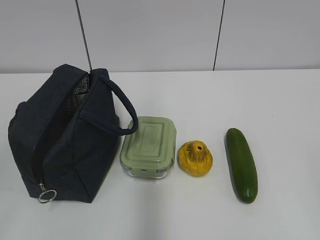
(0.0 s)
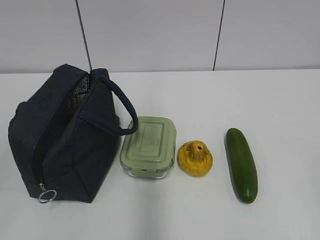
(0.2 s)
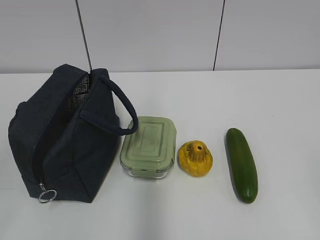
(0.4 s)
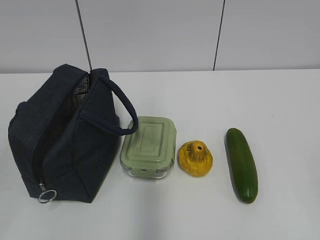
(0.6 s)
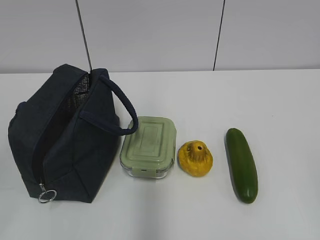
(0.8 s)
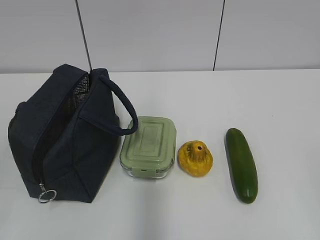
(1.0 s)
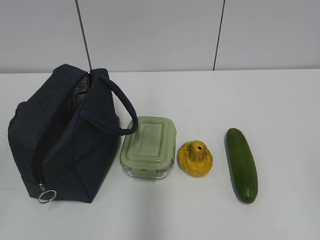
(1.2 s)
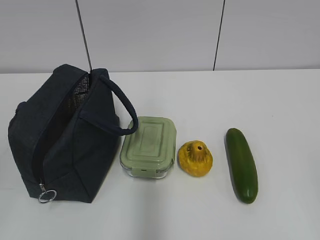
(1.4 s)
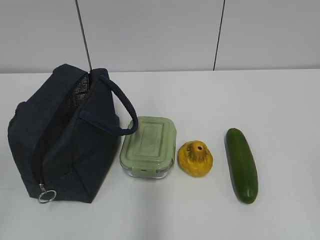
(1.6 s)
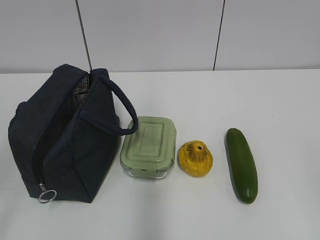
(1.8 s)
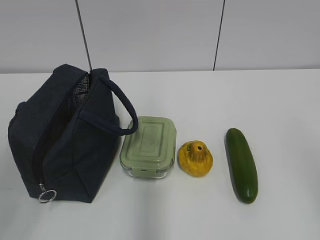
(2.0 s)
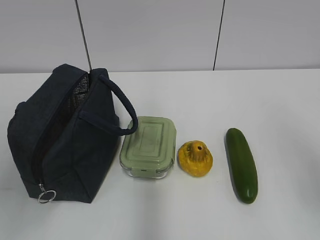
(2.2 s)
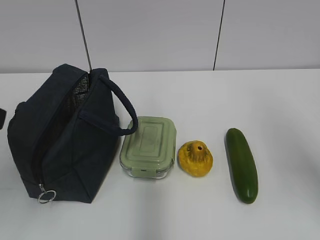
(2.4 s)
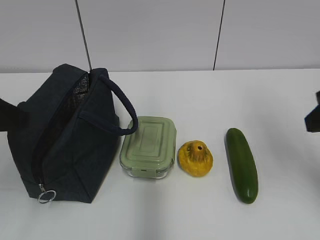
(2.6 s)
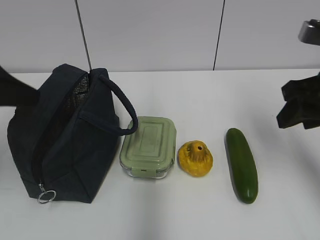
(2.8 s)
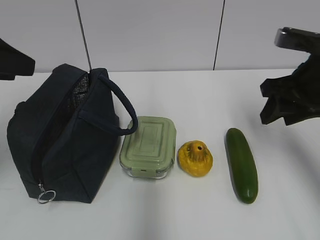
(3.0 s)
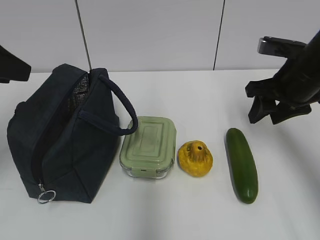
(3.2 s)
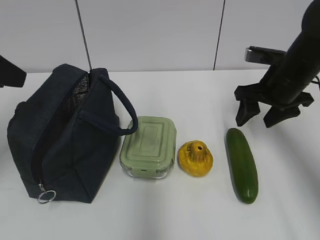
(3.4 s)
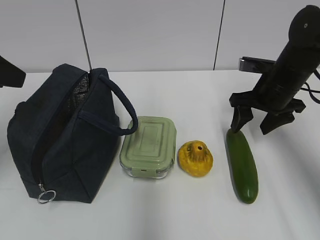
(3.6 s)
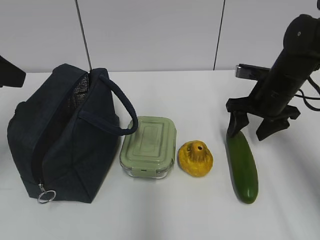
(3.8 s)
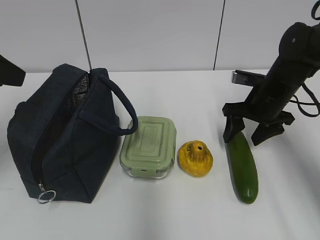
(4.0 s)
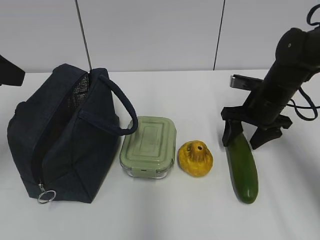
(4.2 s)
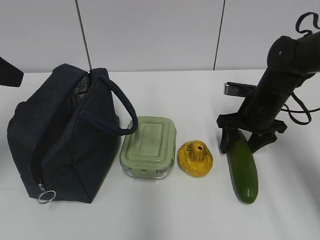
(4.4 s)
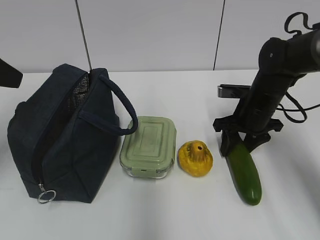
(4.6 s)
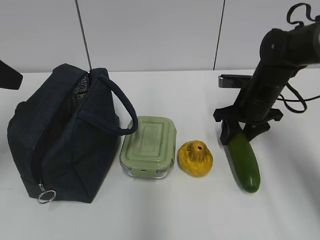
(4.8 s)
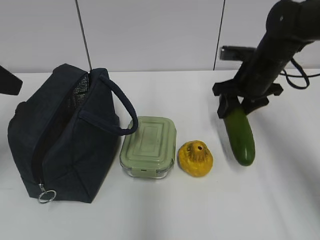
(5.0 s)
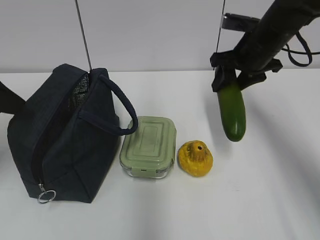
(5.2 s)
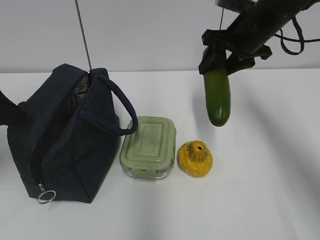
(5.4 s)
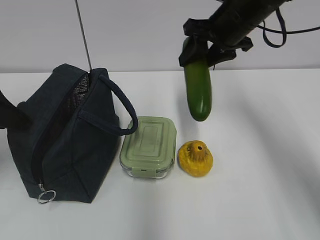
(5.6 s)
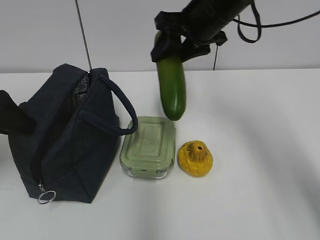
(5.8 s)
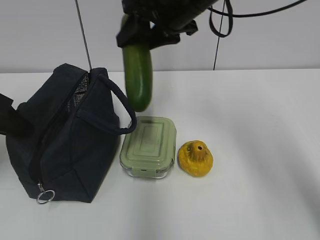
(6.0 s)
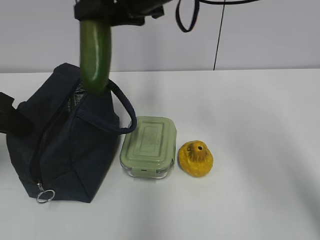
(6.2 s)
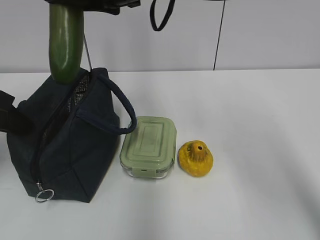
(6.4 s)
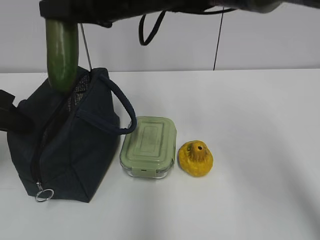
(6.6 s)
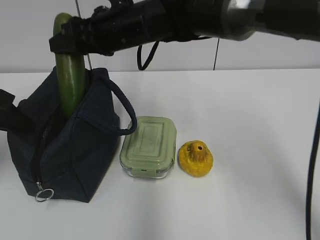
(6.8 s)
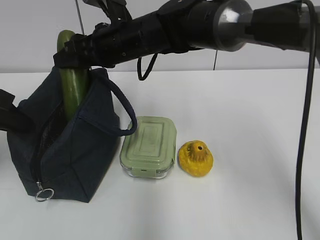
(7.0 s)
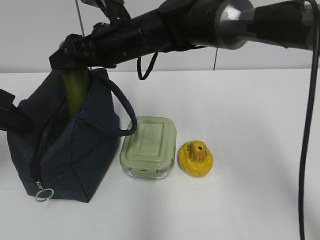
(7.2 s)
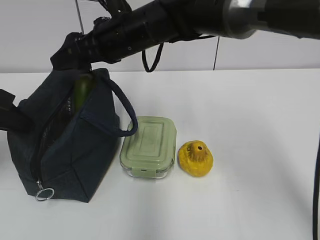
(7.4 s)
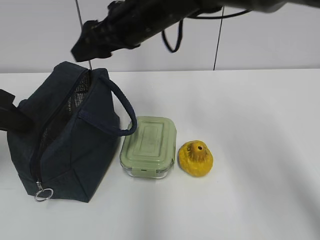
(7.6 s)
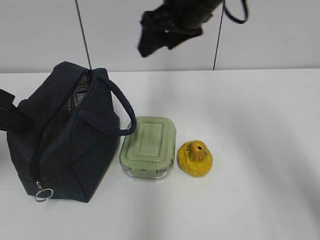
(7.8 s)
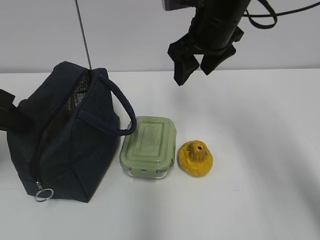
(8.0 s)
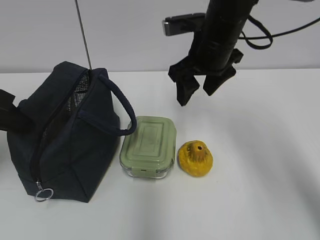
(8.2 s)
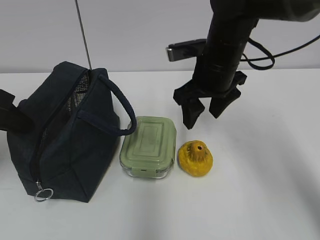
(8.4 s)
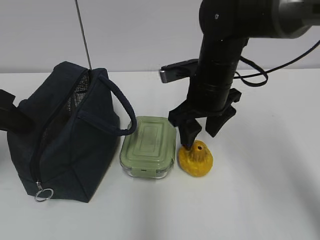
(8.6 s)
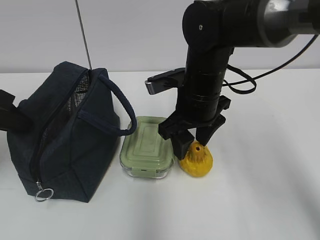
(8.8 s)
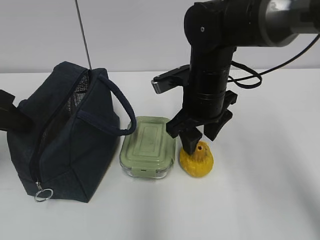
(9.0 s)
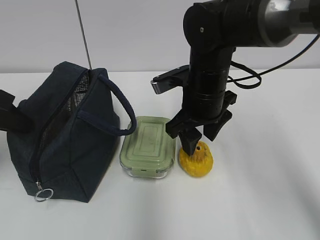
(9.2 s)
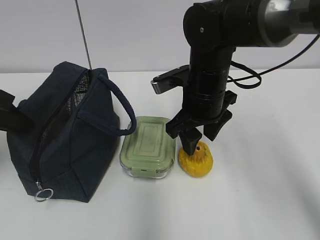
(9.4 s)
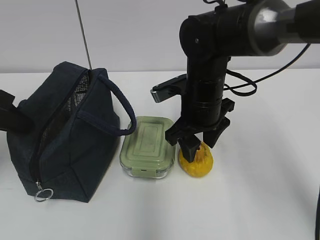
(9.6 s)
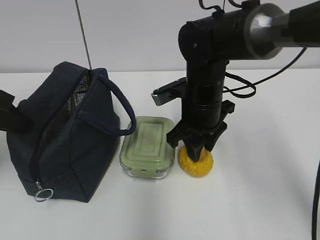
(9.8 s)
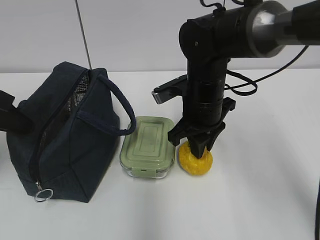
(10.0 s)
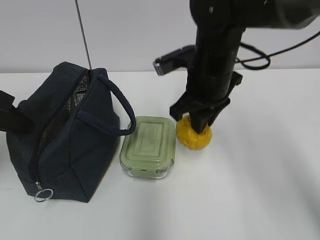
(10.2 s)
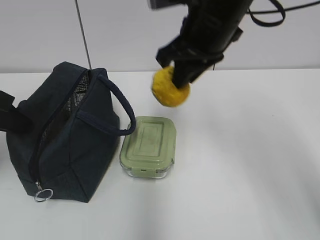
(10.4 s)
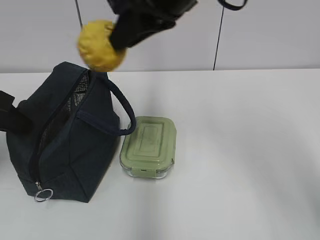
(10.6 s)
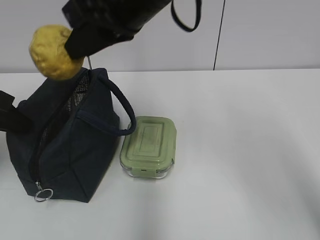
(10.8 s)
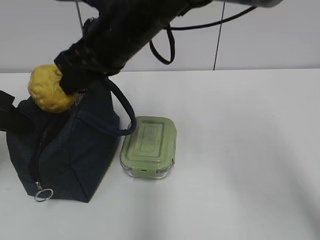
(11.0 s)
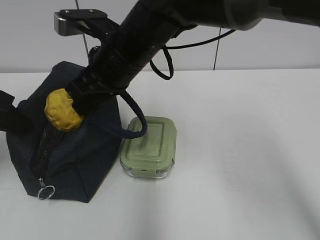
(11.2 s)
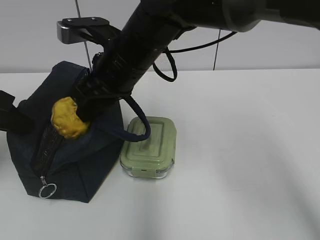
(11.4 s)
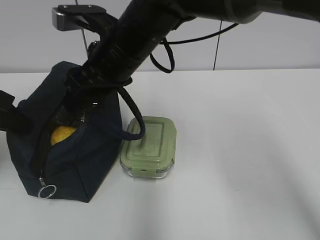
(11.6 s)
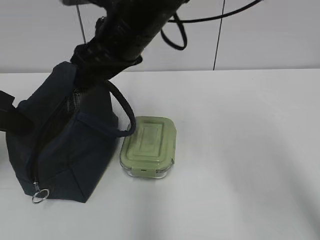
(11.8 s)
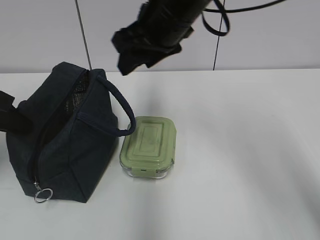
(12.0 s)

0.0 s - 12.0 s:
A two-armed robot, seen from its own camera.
Step, 0.0 s - 4.4 s: Grab the cucumber with your right hand.
Step, 4.6 s - 6.6 s: Grab the lunch bag with your left hand.
Step, 6.8 s - 7.4 s: Place it into the bag with your right hand.
Step, 7.6 s - 9.8 s: Grab the pear with your right hand.
Step, 10.0 s - 11.4 s: Place it into the bag with your right hand.
1.6 s - 3.0 s: Both grippers travel together forward, approximately 30 cm.
3.0 s - 4.4 s: The right gripper moves downward and forward, roughly 15 cm.
4.4 s - 6.0 s: The left gripper travels downward by roughly 5 cm, and closes its fingers. Meanwhile the right gripper heads upward and to the left, covering roughly 25 cm.
6.0 s - 7.6 s: The right gripper moves roughly 10 cm downward and comes back.
7.6 s - 9.0 s: The right gripper heads downward and to the right, covering approximately 10 cm.
9.0 s - 10.4 s: The right gripper goes some 15 cm upward, and closes.
10.4 s - 12.0 s: The right gripper travels downward and back again, roughly 10 cm each way, and opens its fingers.

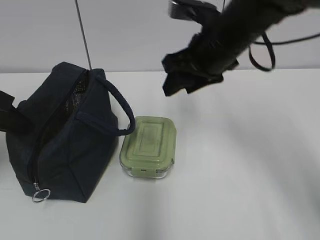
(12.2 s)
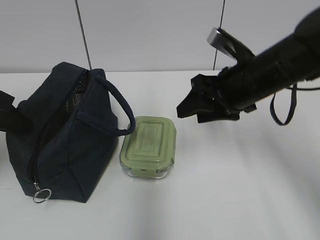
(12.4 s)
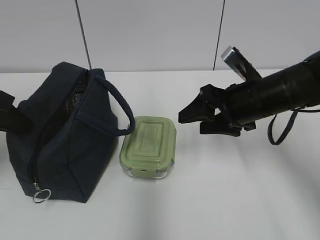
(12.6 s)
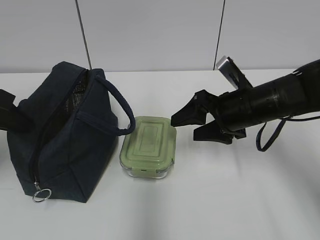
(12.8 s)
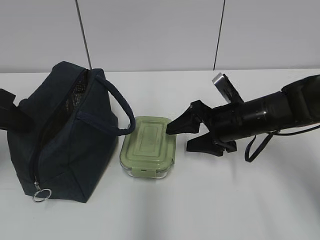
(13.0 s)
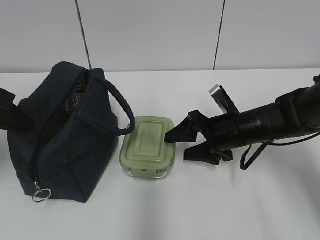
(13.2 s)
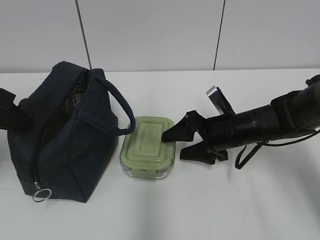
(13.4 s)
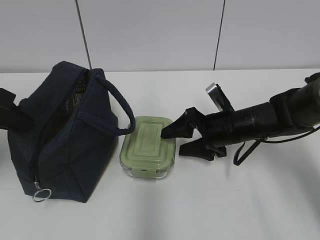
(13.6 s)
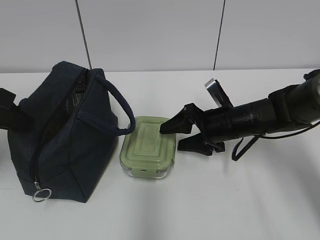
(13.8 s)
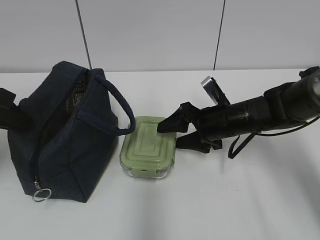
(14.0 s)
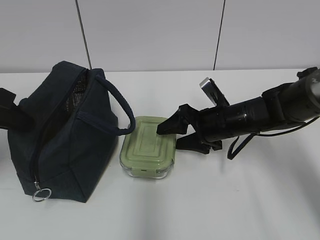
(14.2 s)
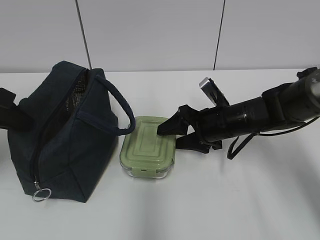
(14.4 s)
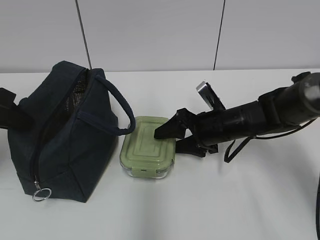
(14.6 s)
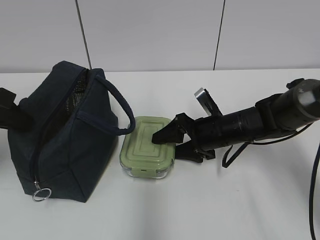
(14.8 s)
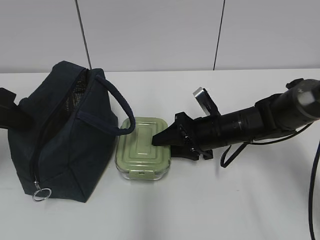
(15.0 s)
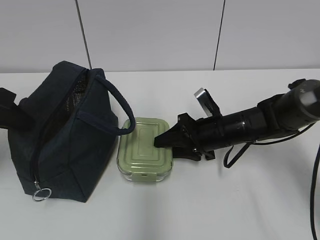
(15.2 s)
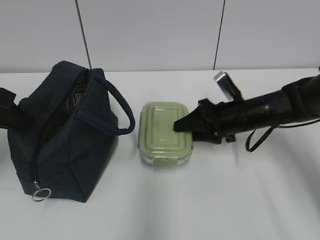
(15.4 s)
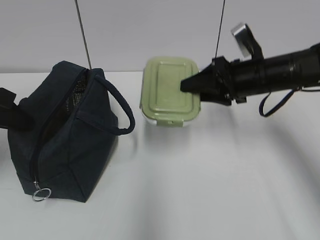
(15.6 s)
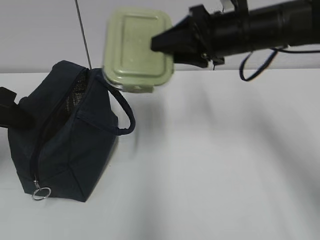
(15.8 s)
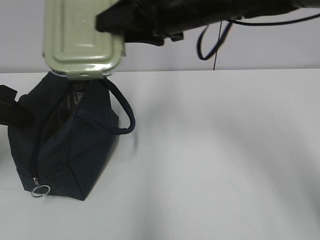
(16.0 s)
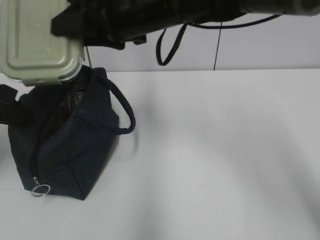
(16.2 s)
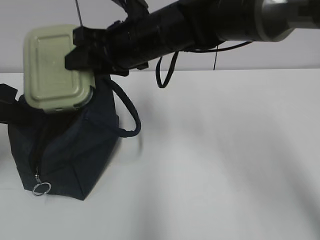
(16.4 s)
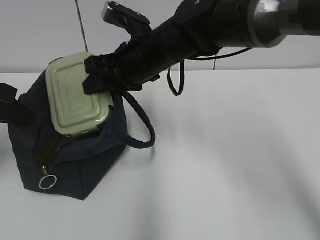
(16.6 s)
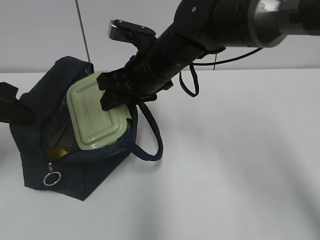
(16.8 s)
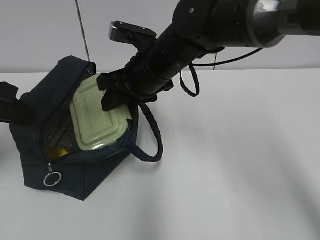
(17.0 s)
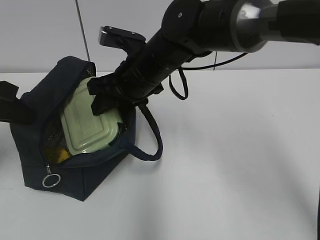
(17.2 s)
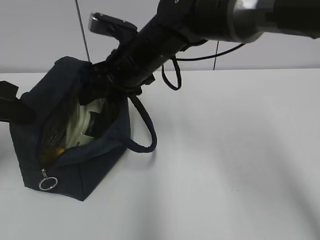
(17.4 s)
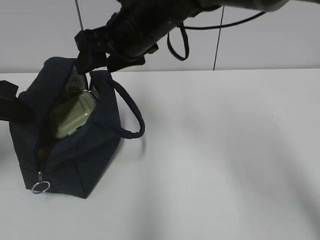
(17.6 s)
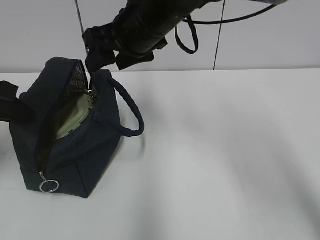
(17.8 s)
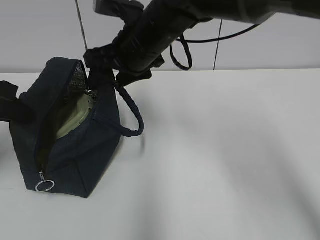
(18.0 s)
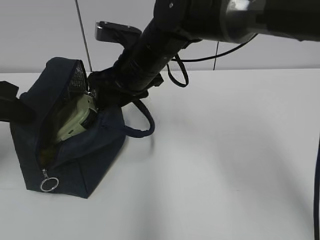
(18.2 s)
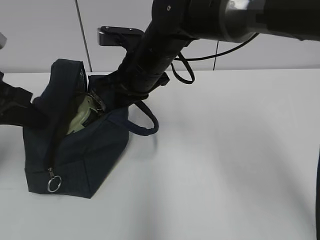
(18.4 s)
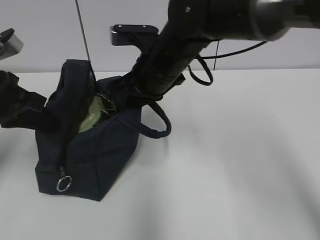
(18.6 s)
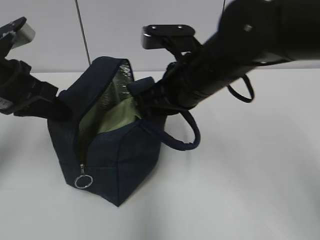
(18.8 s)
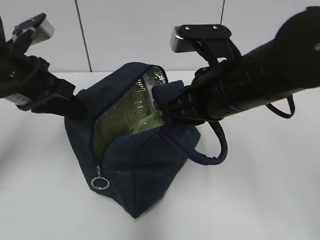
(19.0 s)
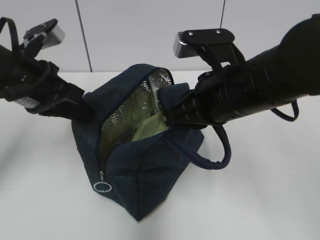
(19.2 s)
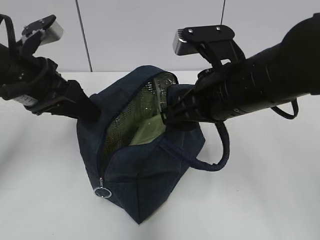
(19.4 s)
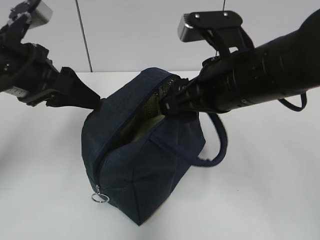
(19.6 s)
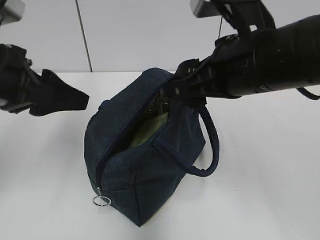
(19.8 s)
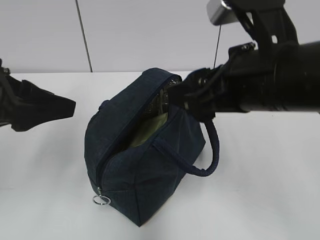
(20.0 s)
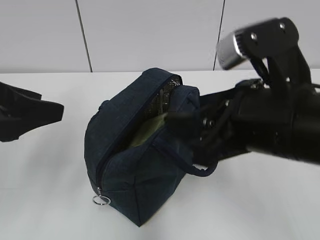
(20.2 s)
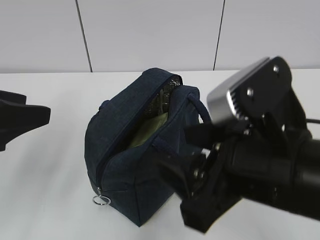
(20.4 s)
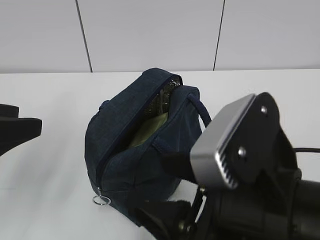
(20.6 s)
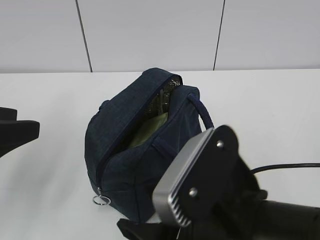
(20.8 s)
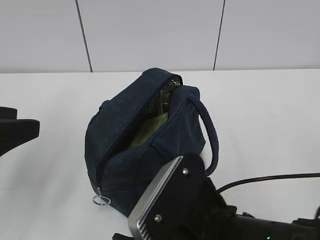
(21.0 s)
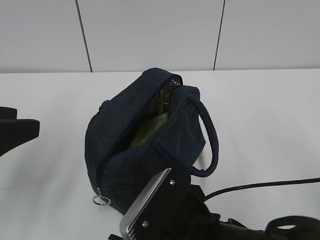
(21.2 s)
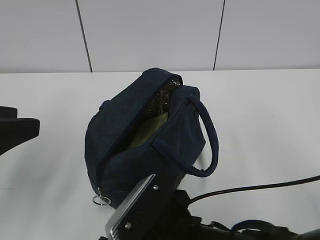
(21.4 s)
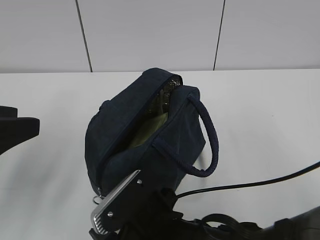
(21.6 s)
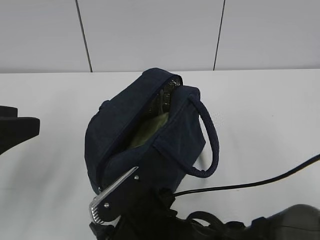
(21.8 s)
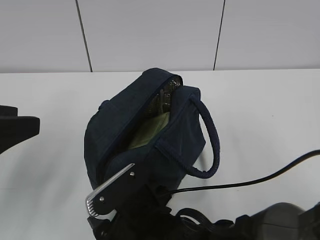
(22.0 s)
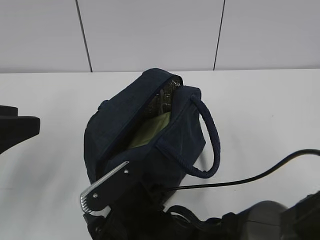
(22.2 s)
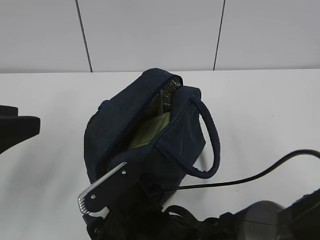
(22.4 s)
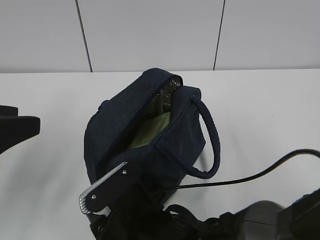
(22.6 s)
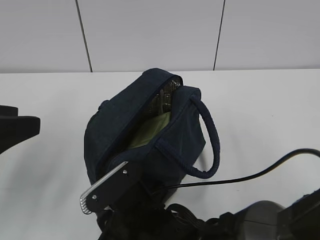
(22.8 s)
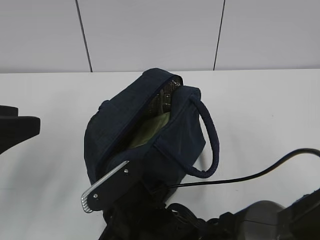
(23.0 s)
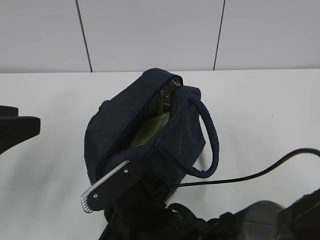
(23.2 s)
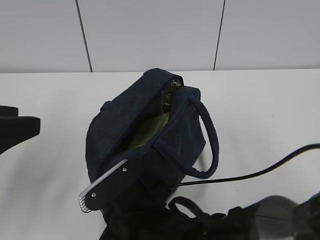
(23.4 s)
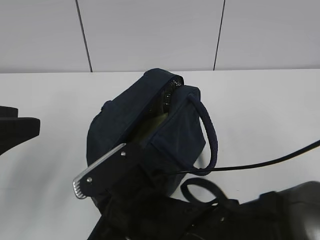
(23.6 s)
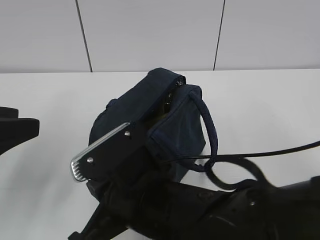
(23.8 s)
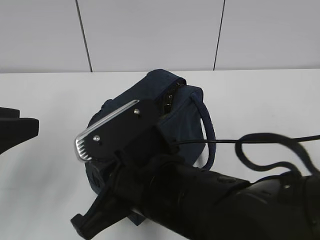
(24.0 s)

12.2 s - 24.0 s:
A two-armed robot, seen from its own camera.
Step, 12.2 s - 15.0 s: Grab the lunch box with your right hand.
Step, 17.6 s - 18.2 s: Grab the lunch bag with your right hand.
Step, 18.4 s - 19.4 s: Move the lunch bag to the right.
12.2 s - 13.6 s: The right gripper goes some 15 cm downward.
13.6 s - 15.2 s: The right gripper closes its fingers.
15.2 s - 16.6 s: The right gripper is displaced upward and to the left by about 20 cm.
16.6 s - 18.2 s: The right gripper reaches about 5 cm upward, then returns.
18.2 s - 19.6 s: The left gripper shifts about 5 cm to the right, and opens up. Meanwhile the right gripper is displaced backward and to the right by roughly 15 cm, and opens.
19.6 s - 21.0 s: The left gripper goes about 10 cm backward. Meanwhile the right gripper heads backward, downward and to the left, covering about 20 cm.
21.0 s - 22.6 s: The right gripper shifts roughly 10 cm downward, to the left and forward.
22.6 s - 24.0 s: The right gripper is displaced upward by roughly 10 cm, and closes.
